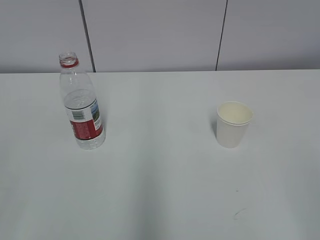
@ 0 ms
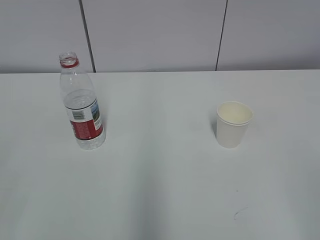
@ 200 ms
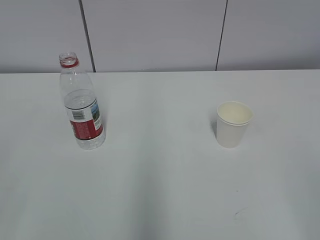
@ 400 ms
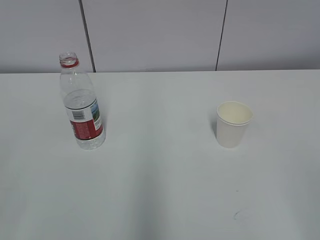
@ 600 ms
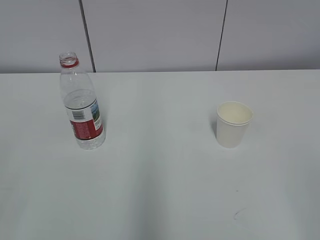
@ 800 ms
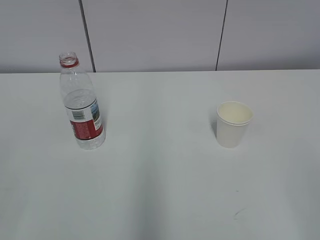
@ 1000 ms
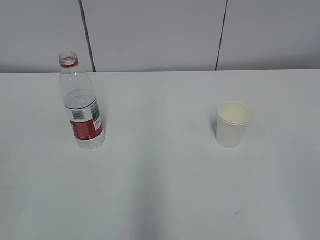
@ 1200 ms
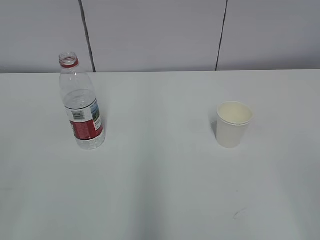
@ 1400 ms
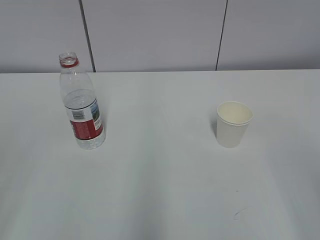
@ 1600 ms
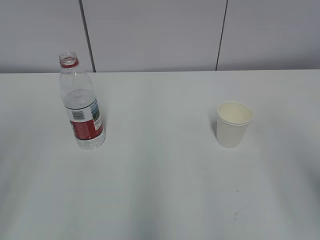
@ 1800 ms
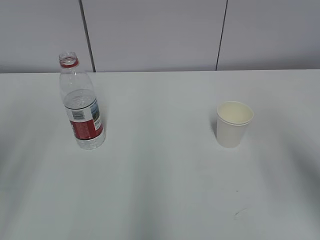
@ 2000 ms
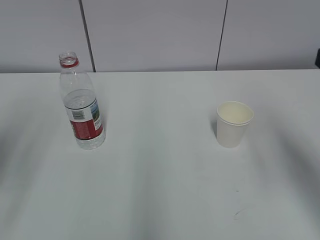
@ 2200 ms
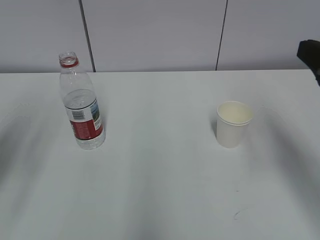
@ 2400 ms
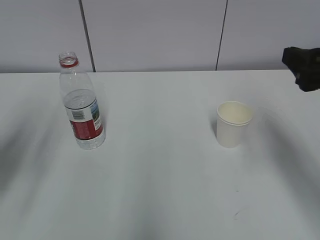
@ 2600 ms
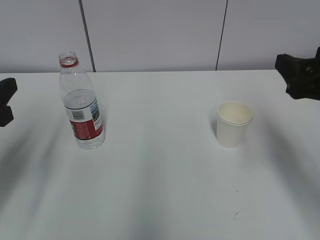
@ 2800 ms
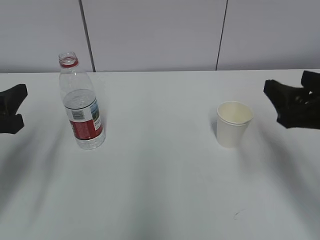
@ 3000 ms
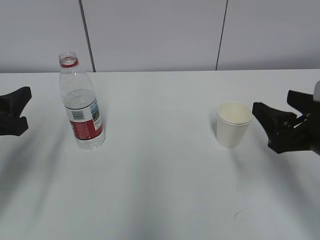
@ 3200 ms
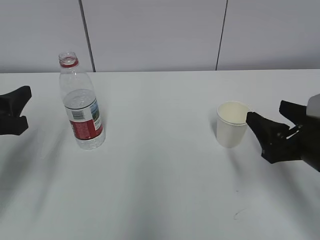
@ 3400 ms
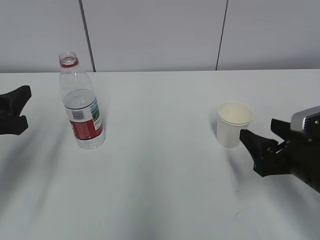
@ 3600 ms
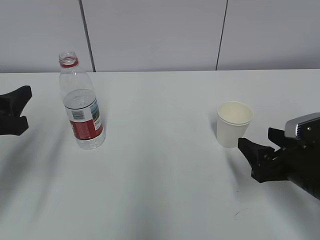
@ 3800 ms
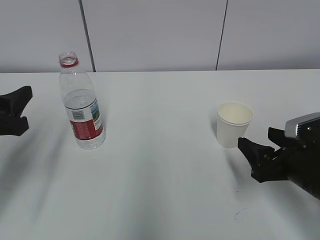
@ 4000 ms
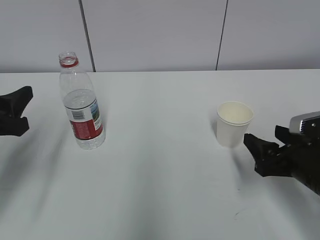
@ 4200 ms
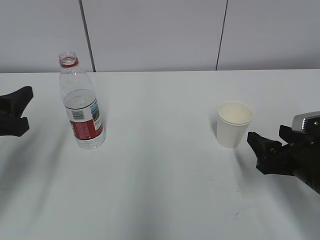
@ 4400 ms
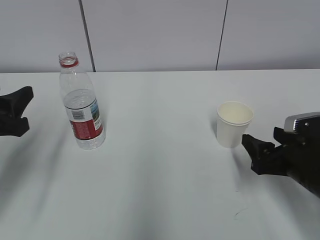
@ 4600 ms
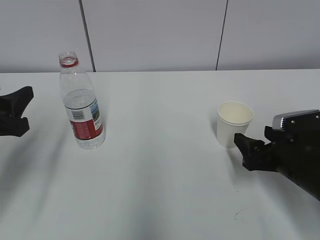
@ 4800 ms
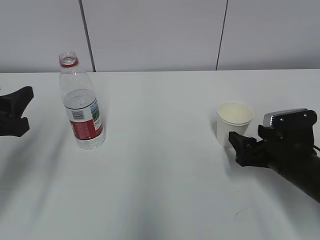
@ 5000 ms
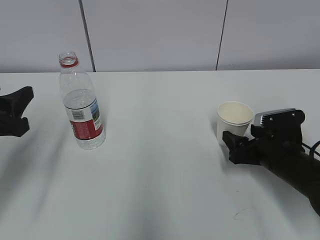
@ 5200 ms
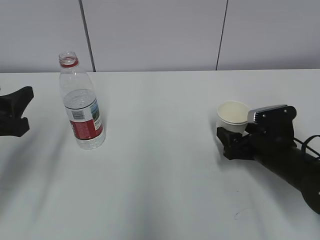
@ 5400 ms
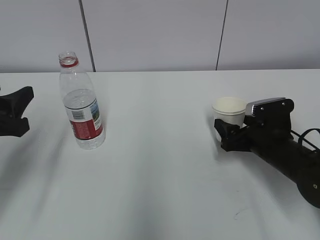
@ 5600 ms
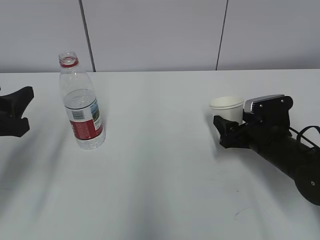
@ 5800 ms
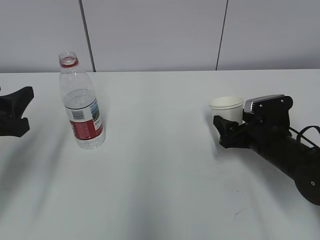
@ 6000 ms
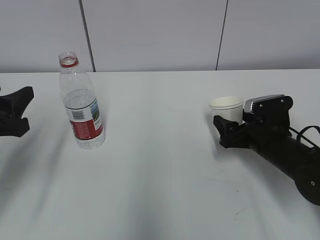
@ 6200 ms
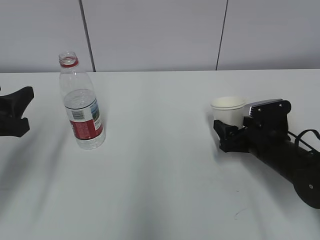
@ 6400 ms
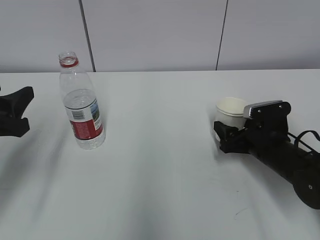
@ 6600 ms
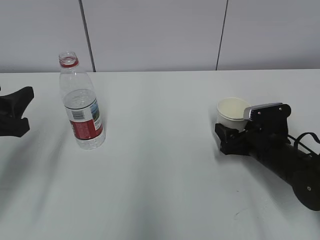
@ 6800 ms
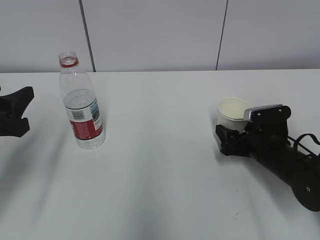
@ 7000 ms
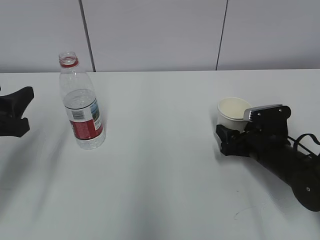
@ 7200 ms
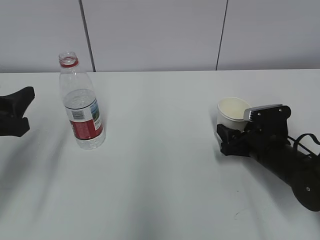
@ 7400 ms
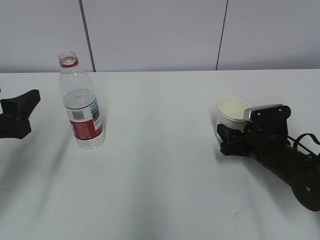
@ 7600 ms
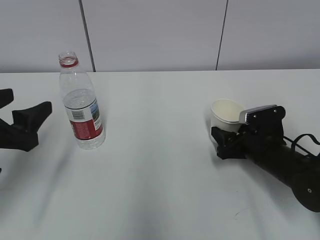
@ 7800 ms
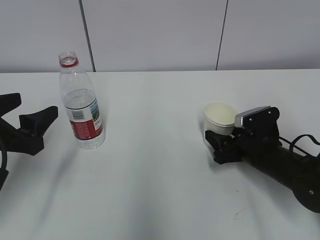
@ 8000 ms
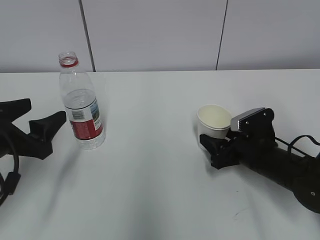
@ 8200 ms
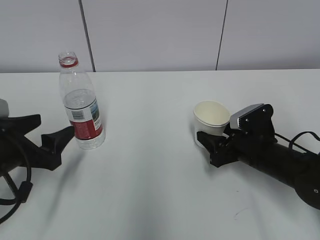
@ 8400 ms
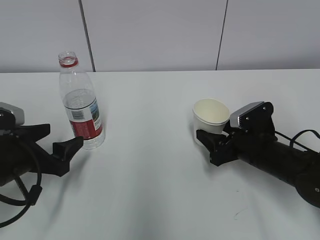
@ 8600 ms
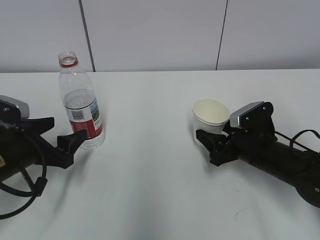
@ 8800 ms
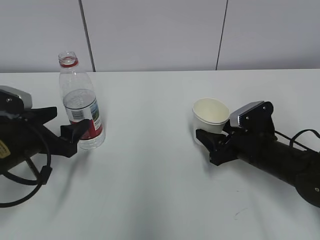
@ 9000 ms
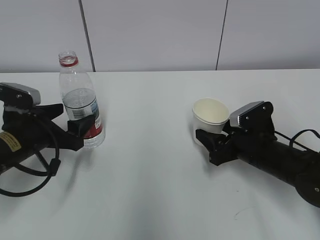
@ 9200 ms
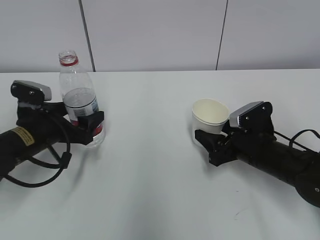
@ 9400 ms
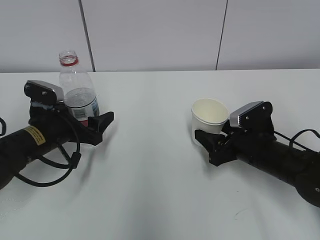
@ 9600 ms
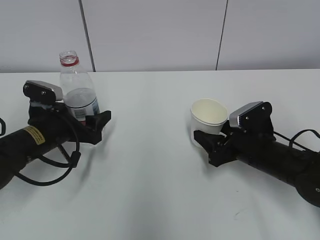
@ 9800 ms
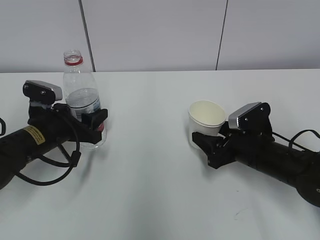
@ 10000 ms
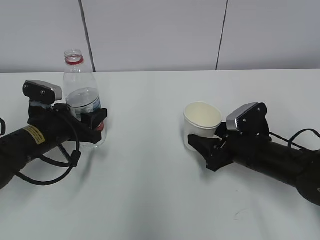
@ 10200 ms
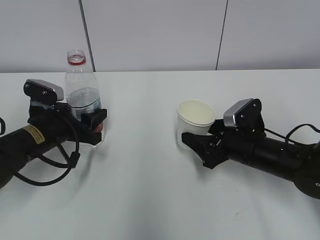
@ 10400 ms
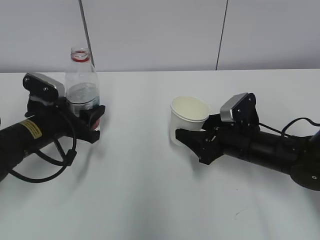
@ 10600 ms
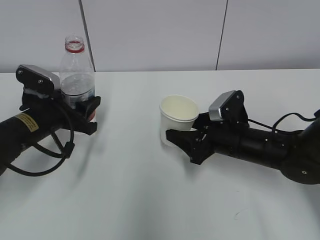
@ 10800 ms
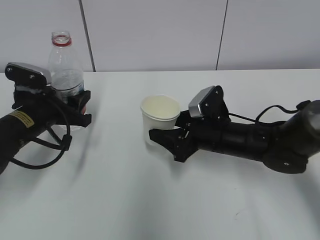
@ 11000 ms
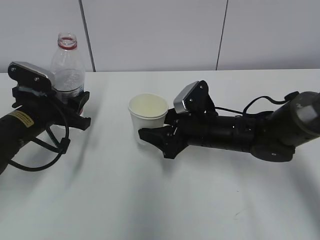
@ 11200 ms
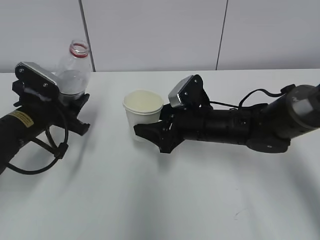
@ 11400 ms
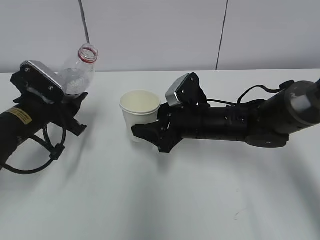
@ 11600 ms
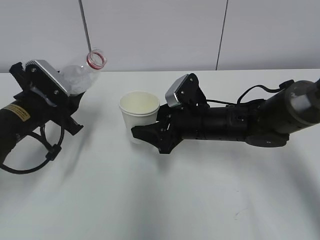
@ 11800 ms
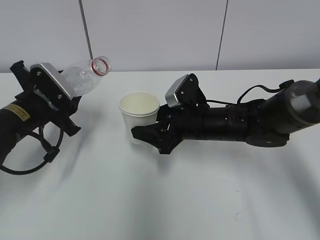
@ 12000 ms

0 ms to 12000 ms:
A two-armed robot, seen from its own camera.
Step, 0 ms to 6800 ms: Grab the paper cup with the right hand.
Step, 7000 ms to 8400 ms: Grab the water bottle with the left hand.
1600 ms to 3000 ms: The right gripper moves forward, roughly 20 cm, while the left gripper is displaced forward and downward by about 20 cm.
3000 ms to 4400 ms: The right gripper heads downward, covering approximately 10 cm.
4400 ms to 6000 ms: The right gripper heads forward, covering some 10 cm.
6000 ms to 7600 ms: The right gripper closes its fingers; the left gripper opens its fingers.
7600 ms to 9000 ms: The left gripper moves downward and forward, some 10 cm.
9000 ms to 10400 ms: The left gripper goes roughly 5 cm forward, and closes its fingers.
10400 ms to 12000 ms: The right gripper heads to the left, covering about 10 cm.

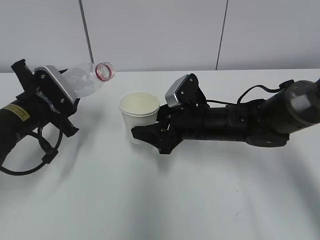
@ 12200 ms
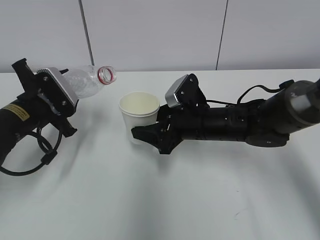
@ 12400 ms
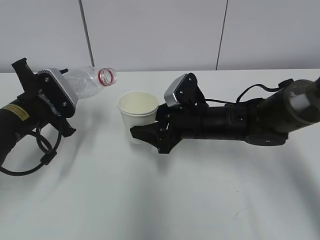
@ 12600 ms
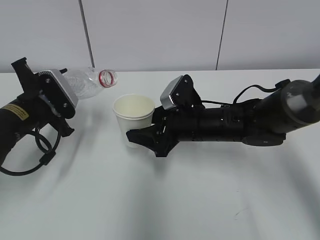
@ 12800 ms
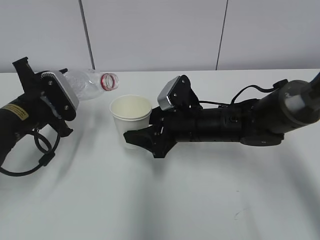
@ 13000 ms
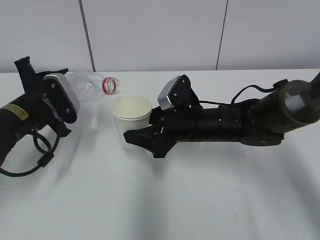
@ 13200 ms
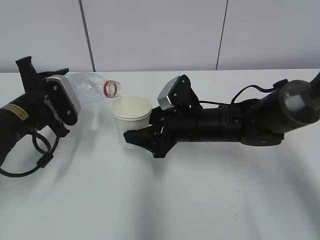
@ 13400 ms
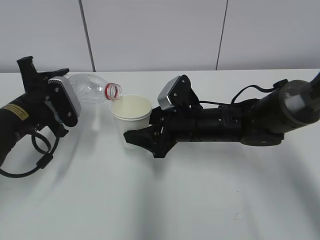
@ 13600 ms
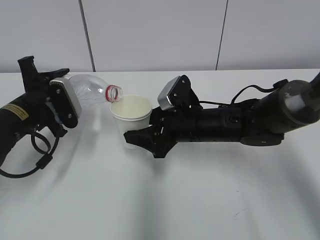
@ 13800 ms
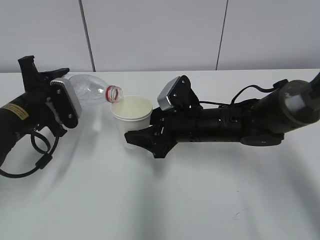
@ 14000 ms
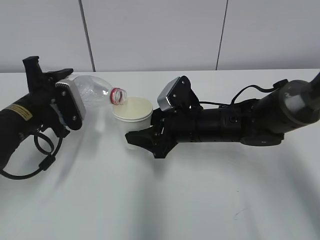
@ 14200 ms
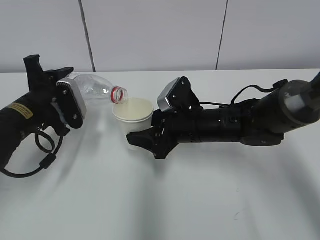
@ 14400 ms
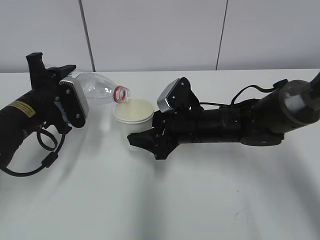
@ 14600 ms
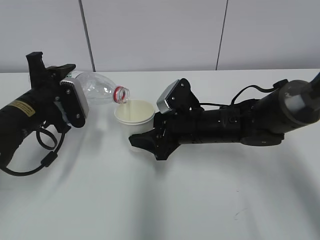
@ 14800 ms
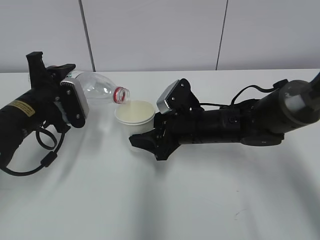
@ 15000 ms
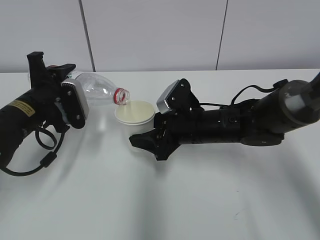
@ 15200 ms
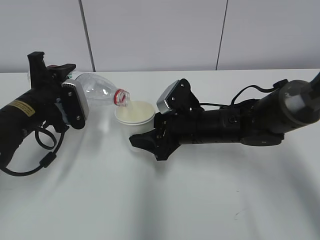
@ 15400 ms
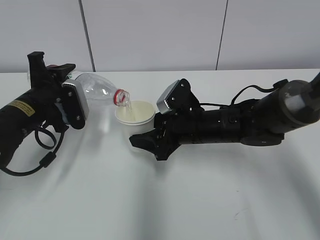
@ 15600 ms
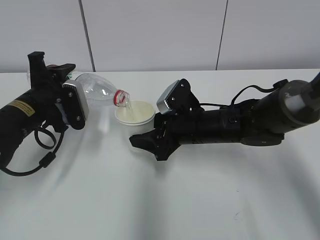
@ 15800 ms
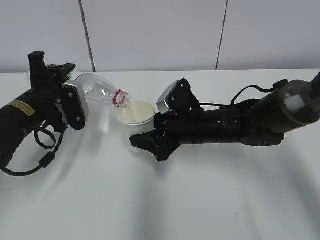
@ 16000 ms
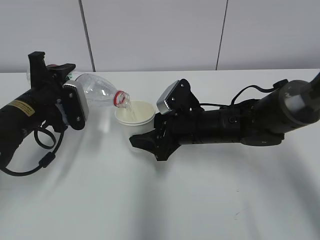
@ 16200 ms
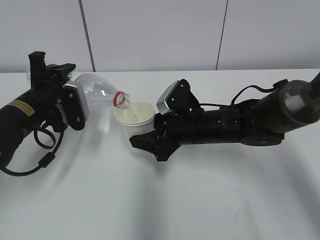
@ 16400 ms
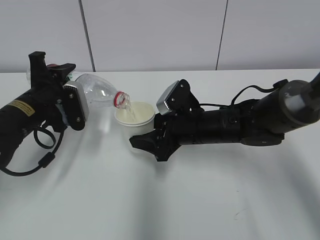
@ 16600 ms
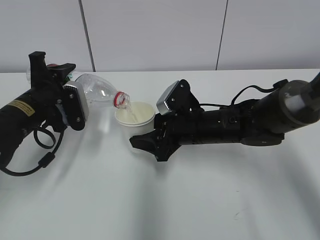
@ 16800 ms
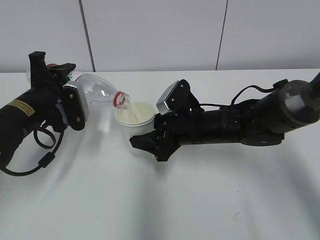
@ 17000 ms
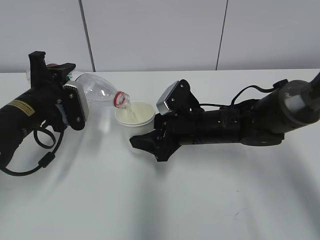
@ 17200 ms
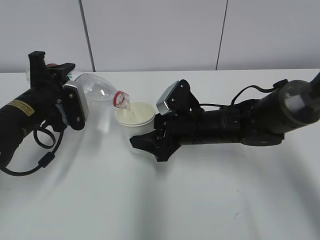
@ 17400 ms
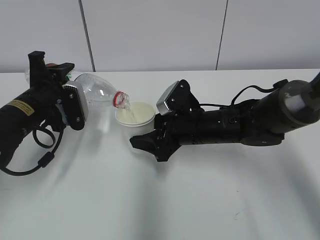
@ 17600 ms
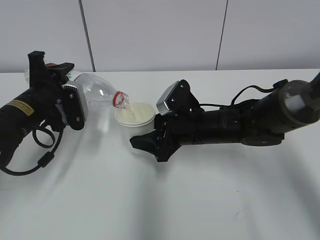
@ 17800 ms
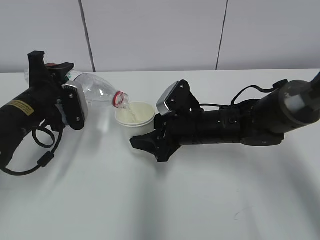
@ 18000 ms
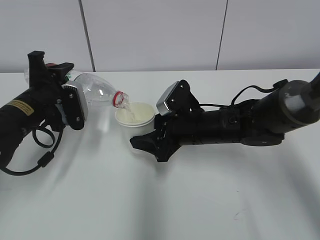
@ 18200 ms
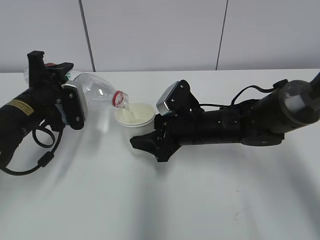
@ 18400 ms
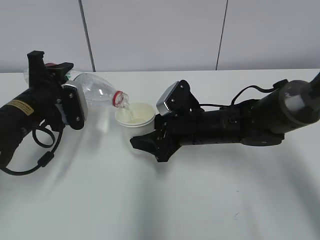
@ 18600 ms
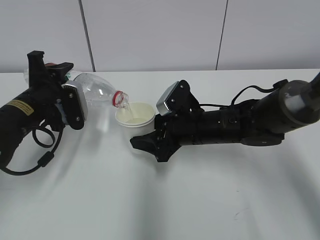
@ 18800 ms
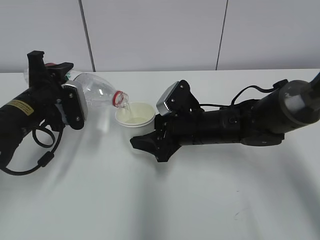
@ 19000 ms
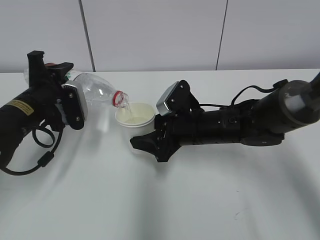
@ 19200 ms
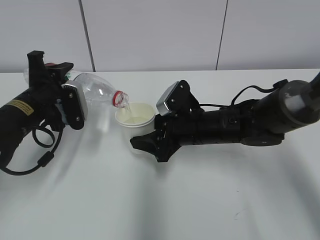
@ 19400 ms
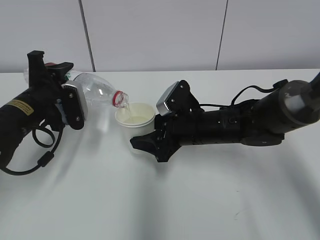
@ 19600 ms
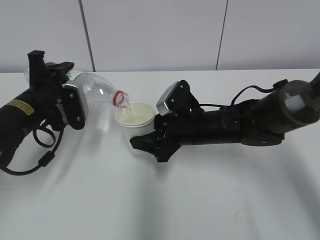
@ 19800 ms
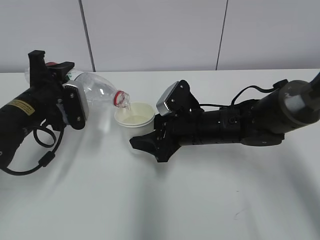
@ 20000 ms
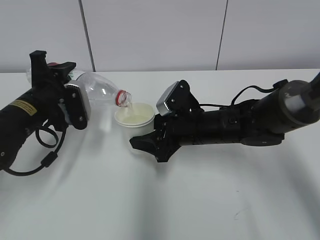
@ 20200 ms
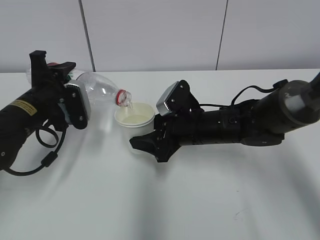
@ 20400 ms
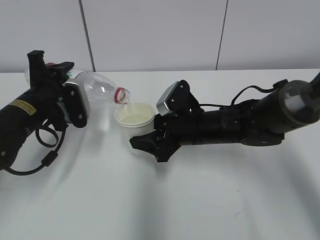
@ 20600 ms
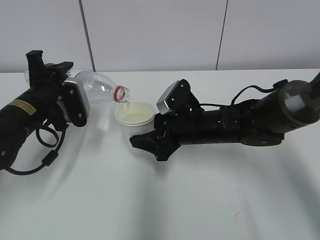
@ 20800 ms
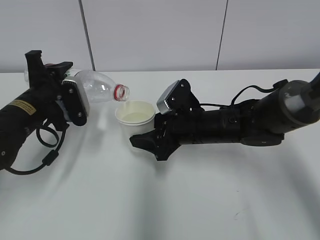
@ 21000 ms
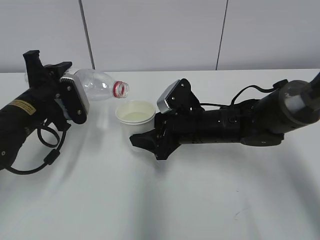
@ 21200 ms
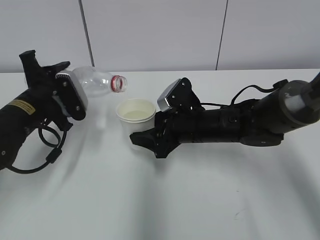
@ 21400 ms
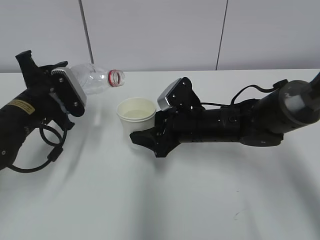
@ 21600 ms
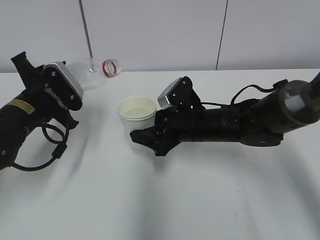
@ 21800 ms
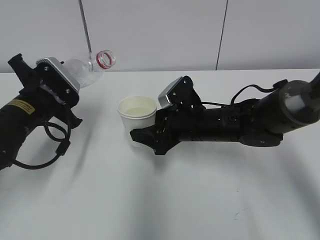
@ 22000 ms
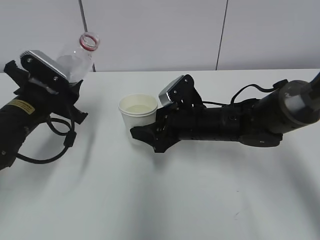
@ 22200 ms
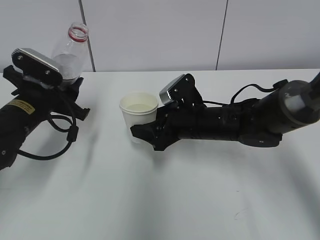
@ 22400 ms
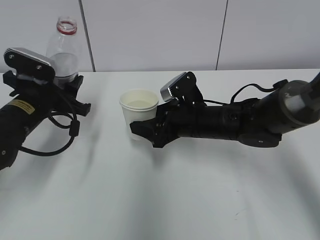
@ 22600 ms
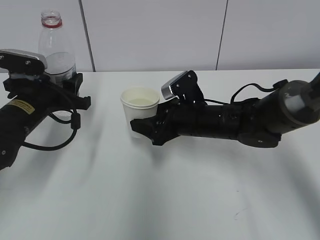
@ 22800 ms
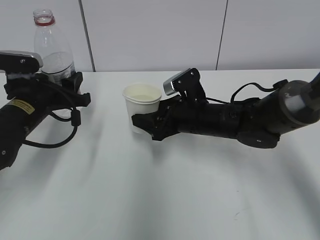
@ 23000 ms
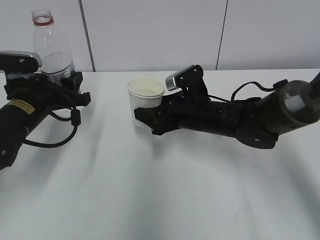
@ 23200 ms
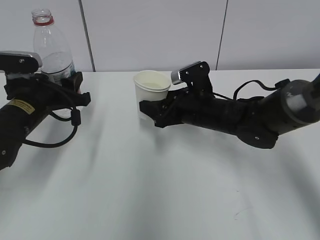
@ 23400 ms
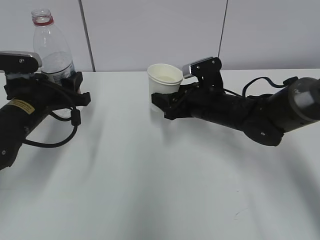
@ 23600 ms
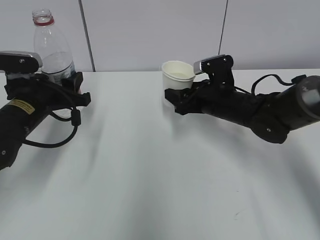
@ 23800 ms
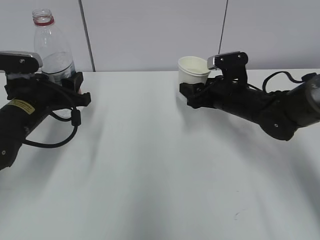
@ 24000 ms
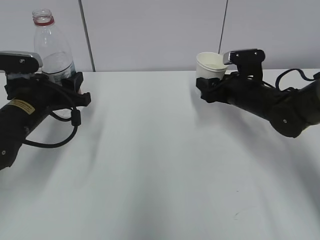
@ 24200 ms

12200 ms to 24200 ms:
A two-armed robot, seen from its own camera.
Step, 12200 ms to 17400 ms: Fill water with the right hand.
Step, 12200 ms to 17400 ms: Pour water with the left hand.
Step, 19400 ms to 21600 ms: Place the paper cup with the right hand.
13800 ms to 15200 ms: The grippers make only small movements.
15200 ms to 16600 ms: Both grippers stay put.
16600 ms to 19800 ms: Both grippers stay about where they are.
19800 ms to 21200 ms: The grippers make only small movements.
22600 ms to 24200 ms: The right gripper shifts approximately 10 cm to the right and forward.
